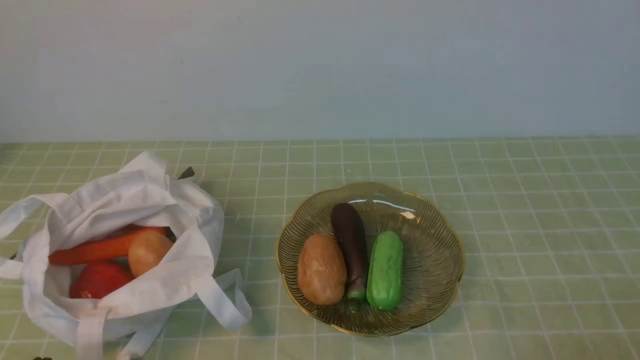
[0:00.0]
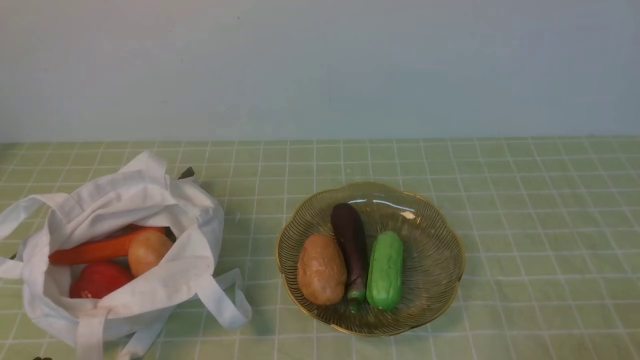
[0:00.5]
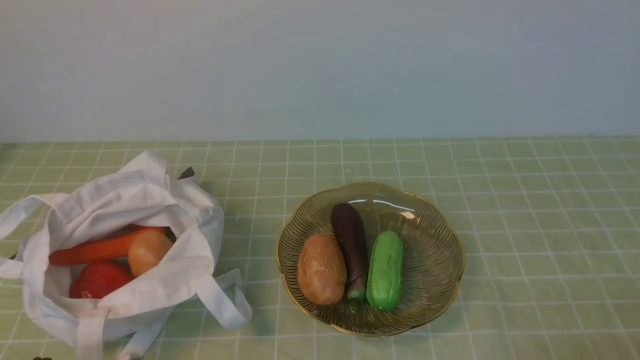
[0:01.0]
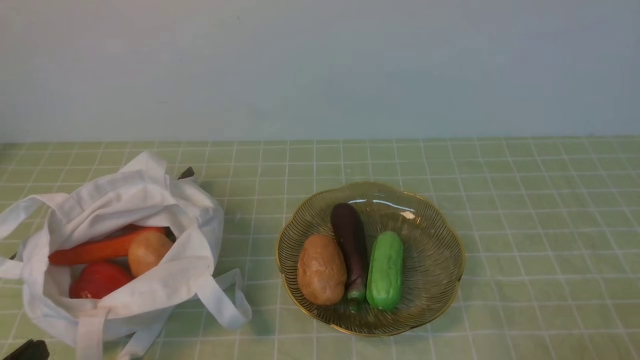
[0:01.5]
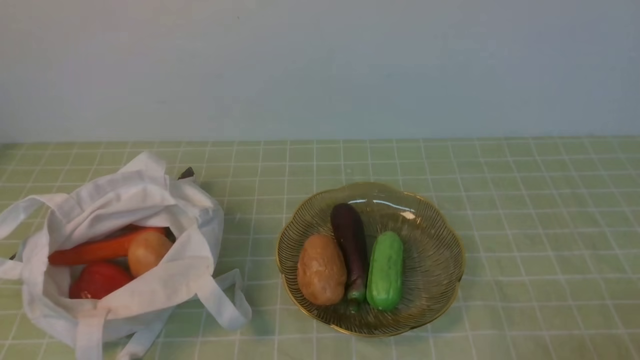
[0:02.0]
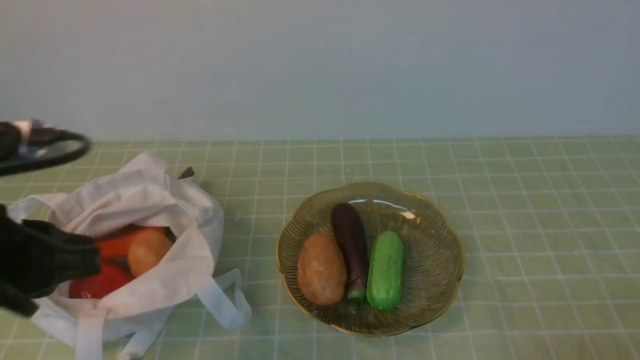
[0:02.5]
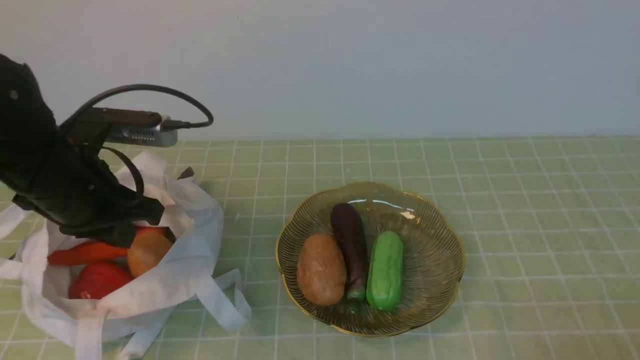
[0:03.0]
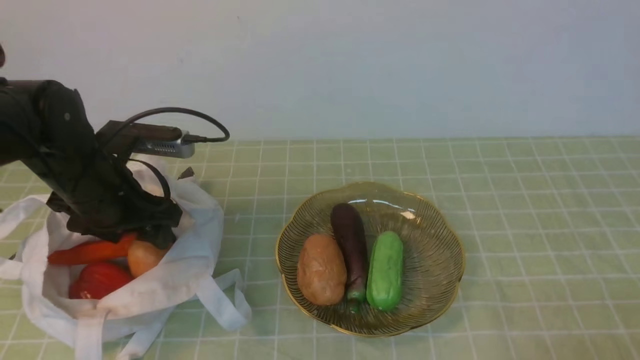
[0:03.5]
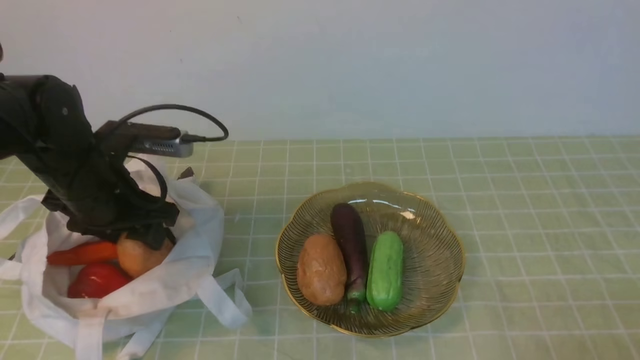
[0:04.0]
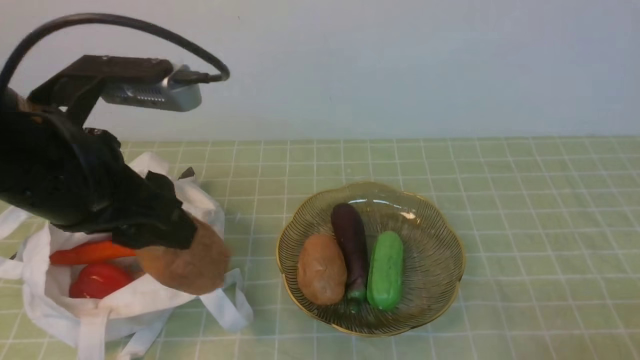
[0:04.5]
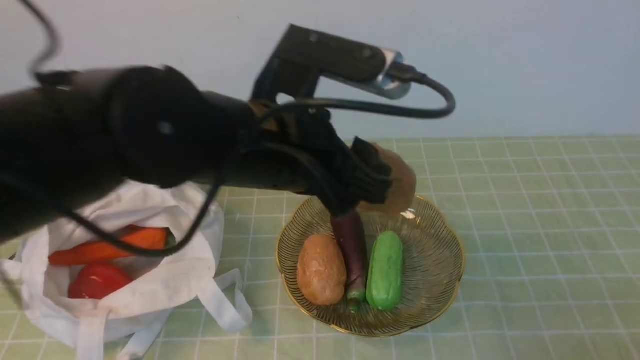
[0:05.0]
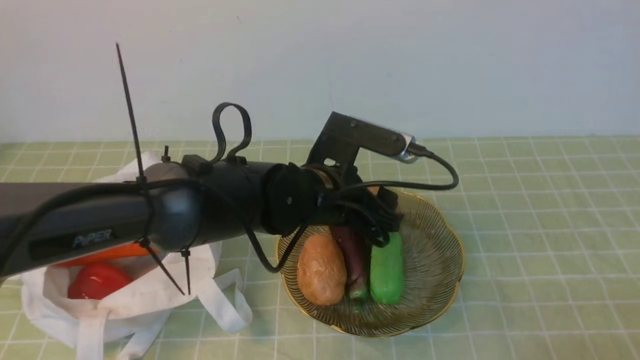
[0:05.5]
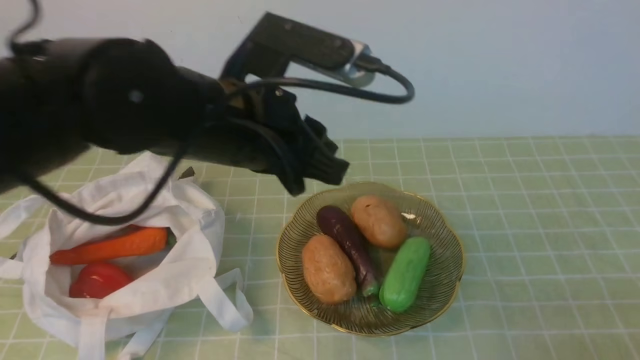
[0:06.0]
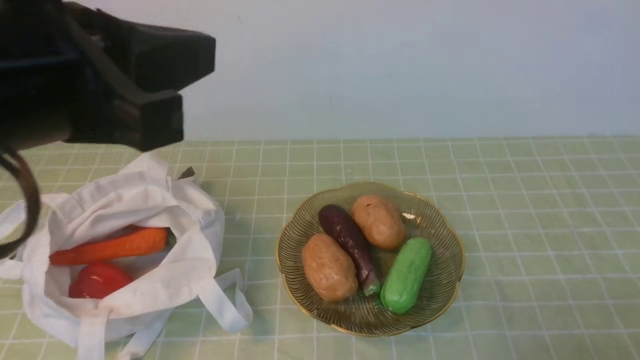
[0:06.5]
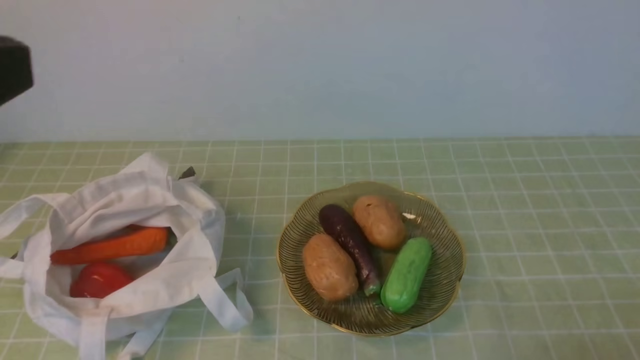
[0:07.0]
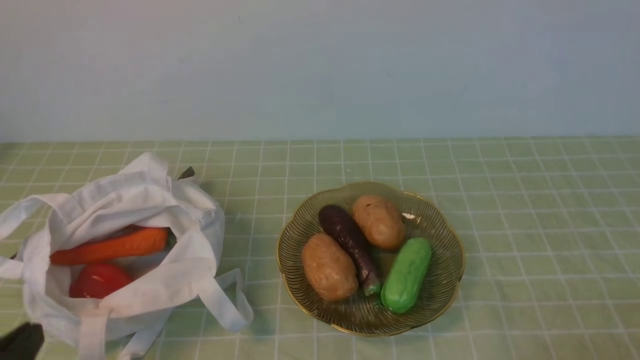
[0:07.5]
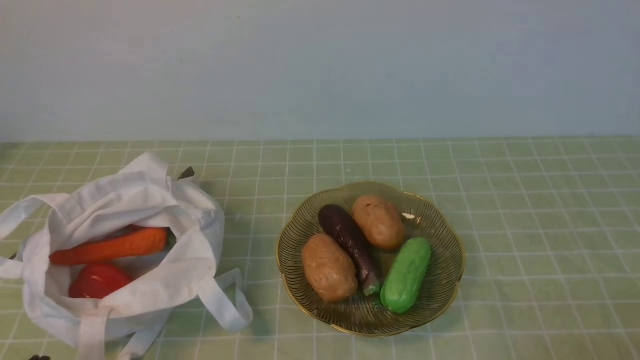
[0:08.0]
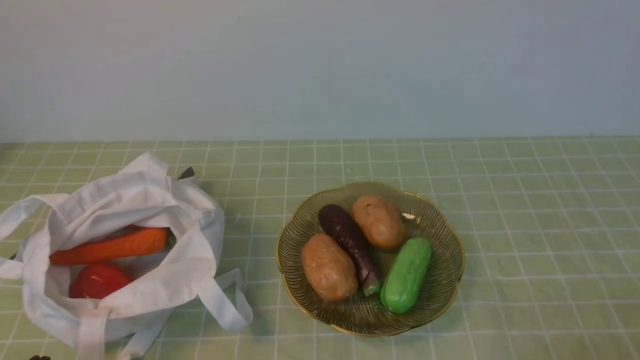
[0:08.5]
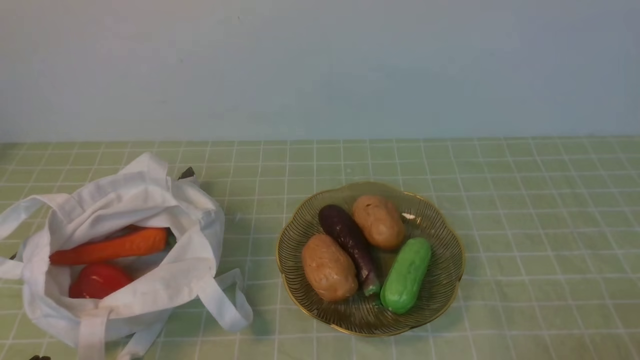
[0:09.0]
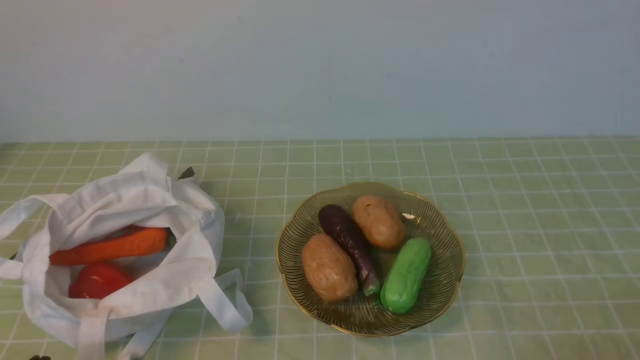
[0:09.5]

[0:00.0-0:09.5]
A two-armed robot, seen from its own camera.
Task of the whole recording: take vegetables from bag on green coffee tablecloth place on plate.
Step, 0:00.0 to 0:03.5: Grasp the potato with left gripper.
Step, 0:04.0 to 0:05.5: Place the potato on the plate with left gripper.
0:02.0 to 0:04.0: The left gripper is displaced forward by about 30 cm, and opens its fingers.
0:04.0 to 0:05.5: The left gripper moves to the right, about 20 cm.
0:05.5 to 0:07.5: The left gripper goes some 35 cm backward and to the left, and closes its fingers.

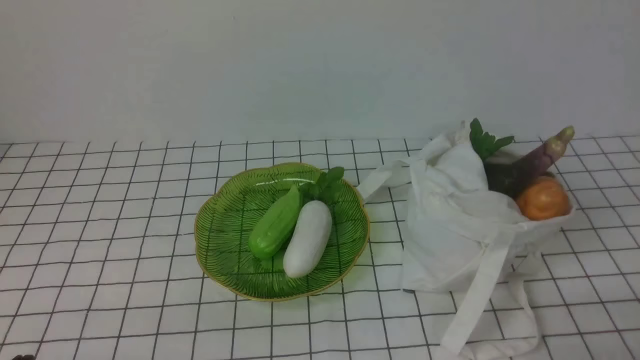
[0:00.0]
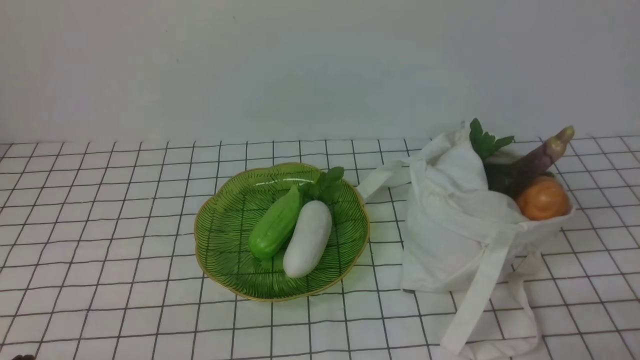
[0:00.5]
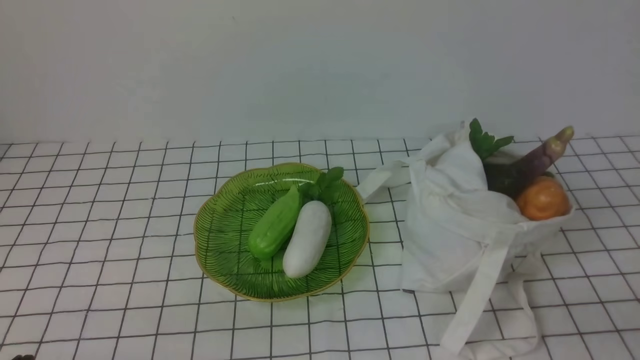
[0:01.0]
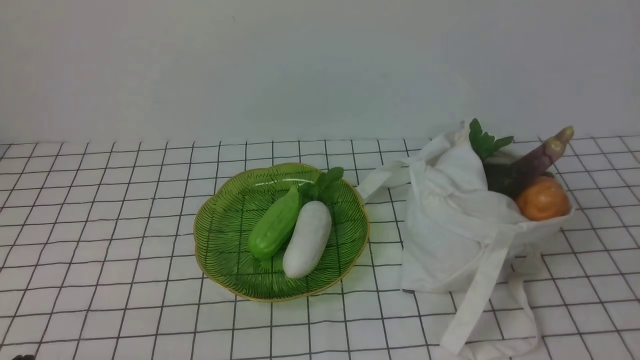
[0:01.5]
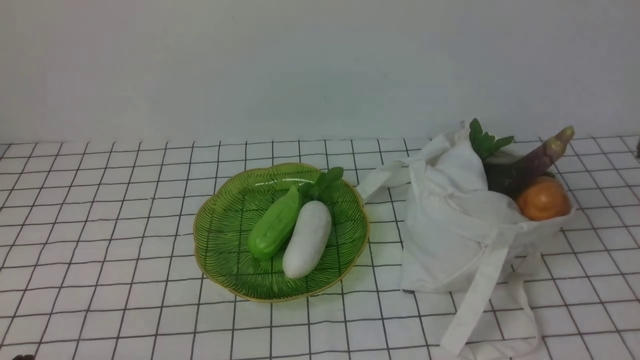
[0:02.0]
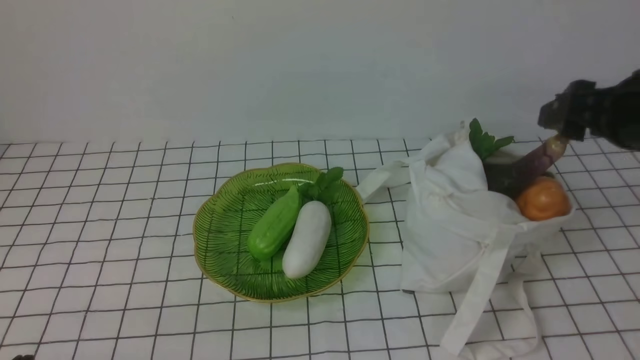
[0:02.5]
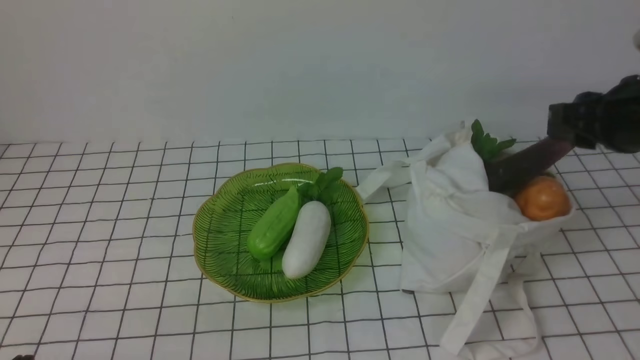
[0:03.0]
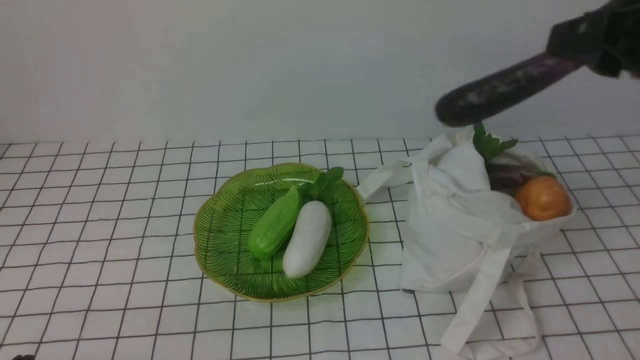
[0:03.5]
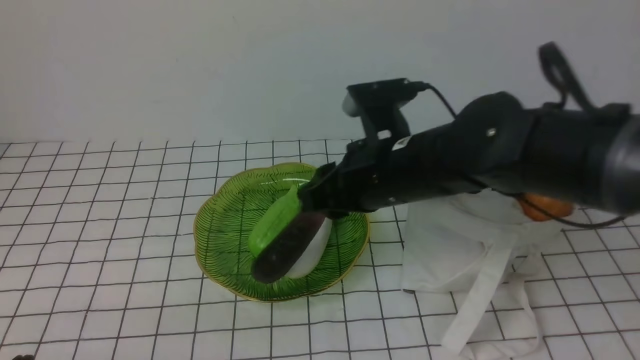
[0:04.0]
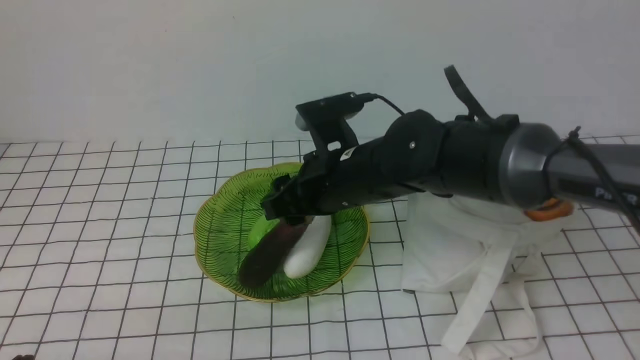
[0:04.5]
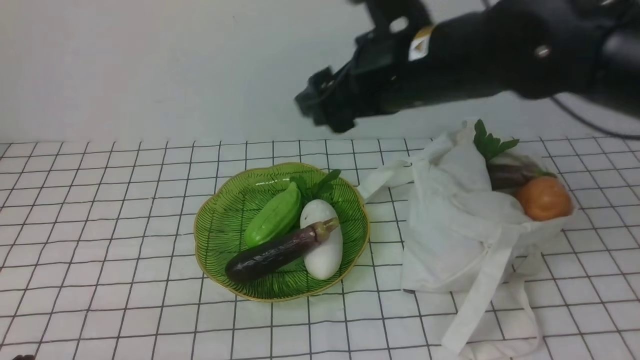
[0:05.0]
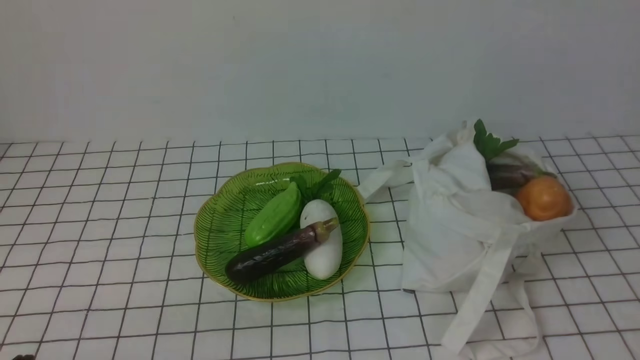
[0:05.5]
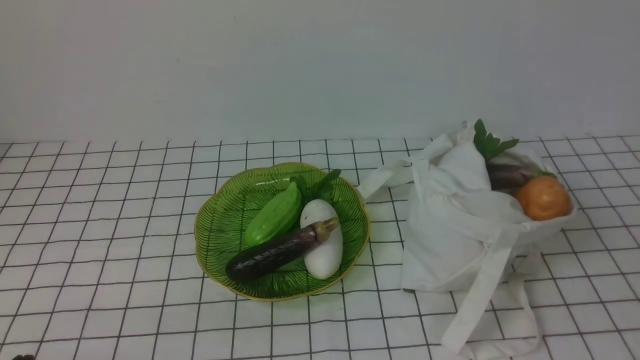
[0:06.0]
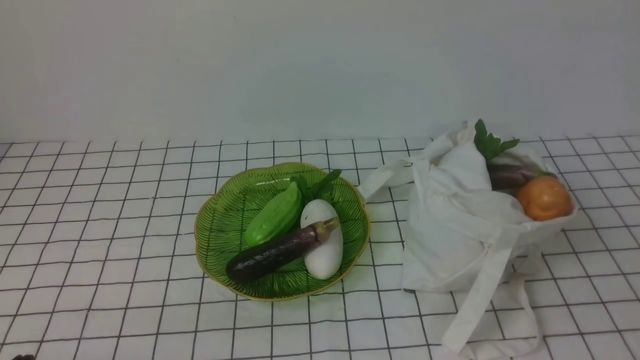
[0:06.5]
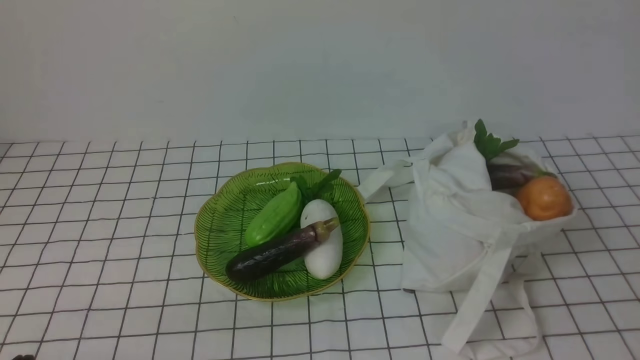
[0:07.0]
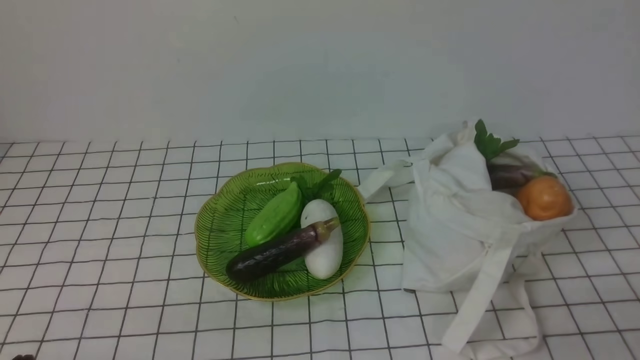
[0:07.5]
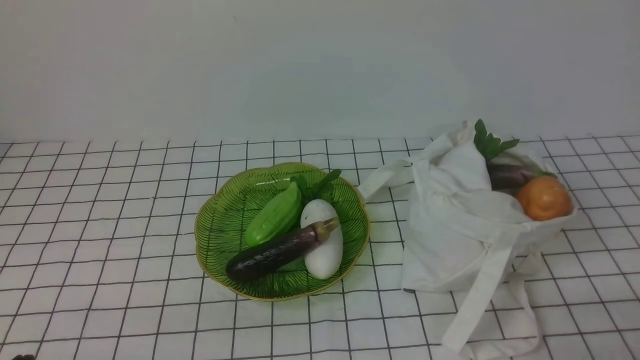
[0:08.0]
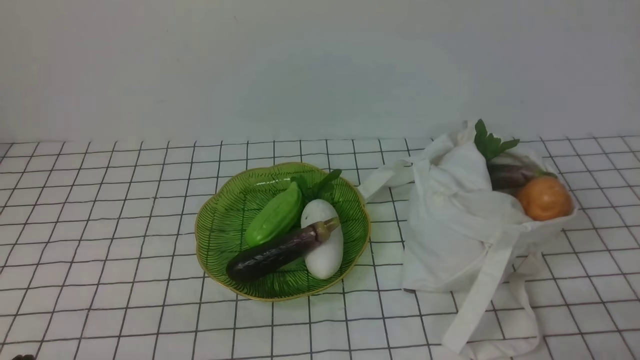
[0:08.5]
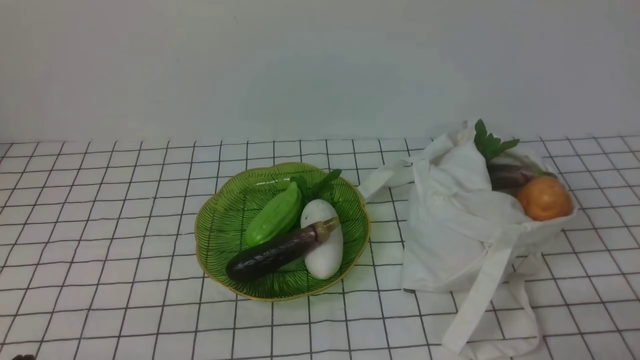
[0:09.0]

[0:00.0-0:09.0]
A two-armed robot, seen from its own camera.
Task of the whole recording: take vegetables from bag on white checkered tablecloth place on plate.
Step, 0:00.0 to 0:02.5: Grasp the eggplant with right gripper.
Step, 0:03.0 to 0:04.5: Place the eggplant on the plate with right gripper.
0:02.0 to 0:04.5: The right gripper travels to the left and forward by roughly 30 cm, and opens.
0:04.5 to 0:07.0: The right gripper goes roughly 40 cm backward and to the right, and closes.
